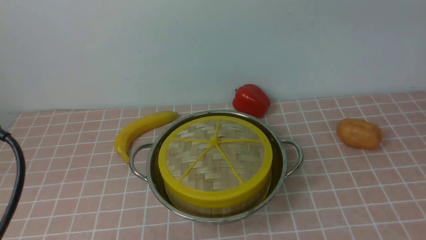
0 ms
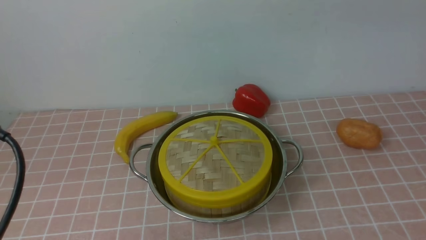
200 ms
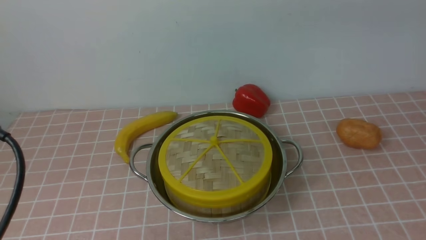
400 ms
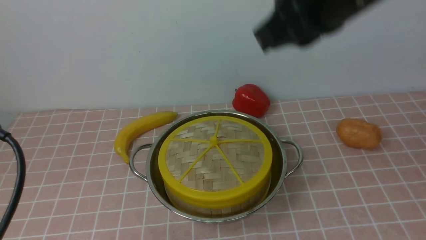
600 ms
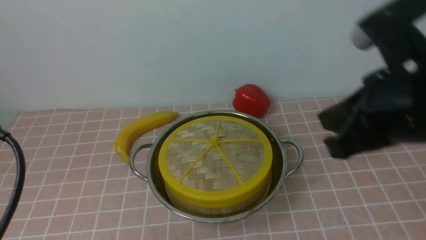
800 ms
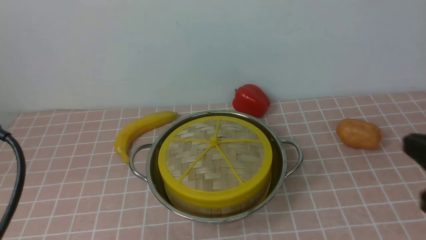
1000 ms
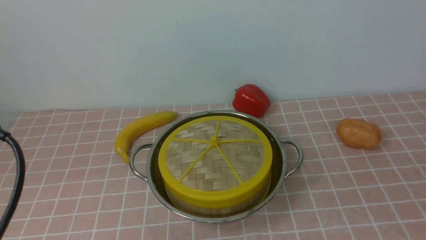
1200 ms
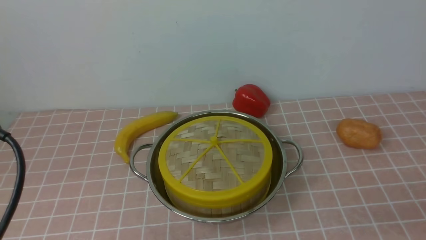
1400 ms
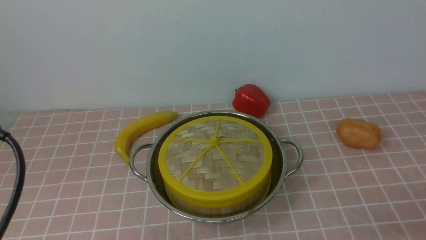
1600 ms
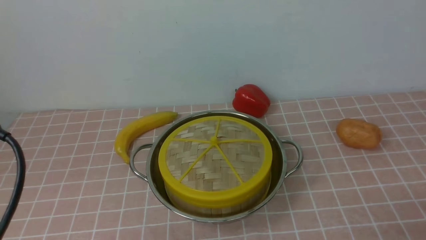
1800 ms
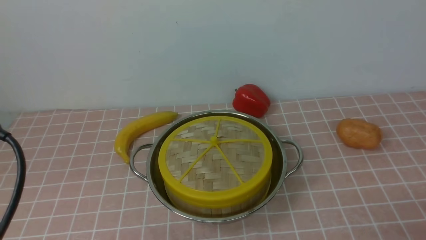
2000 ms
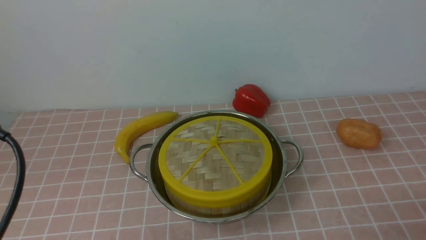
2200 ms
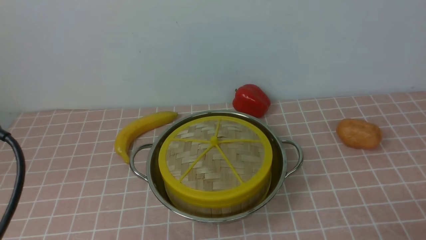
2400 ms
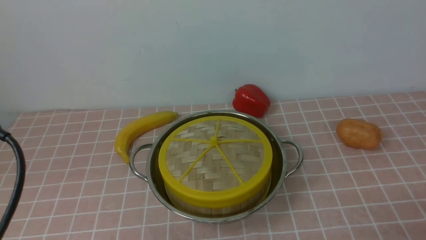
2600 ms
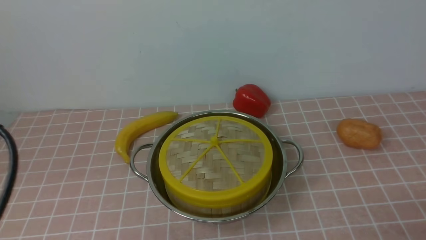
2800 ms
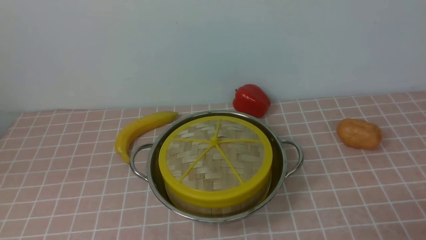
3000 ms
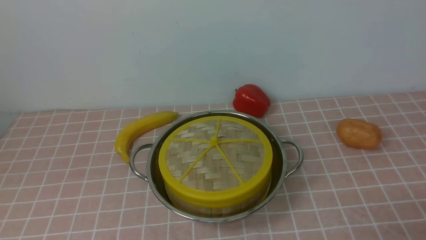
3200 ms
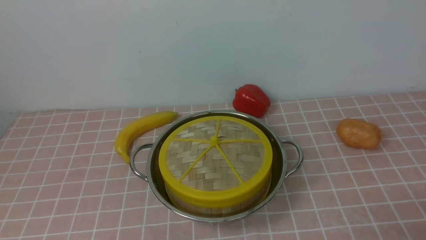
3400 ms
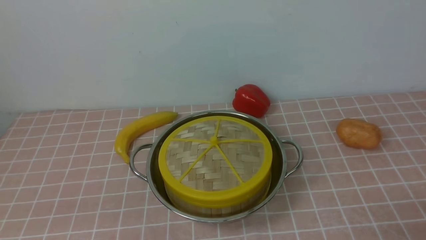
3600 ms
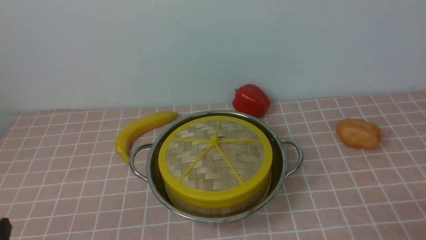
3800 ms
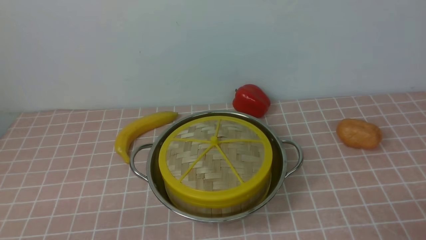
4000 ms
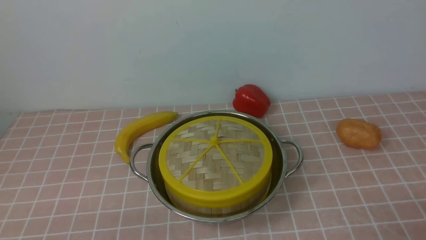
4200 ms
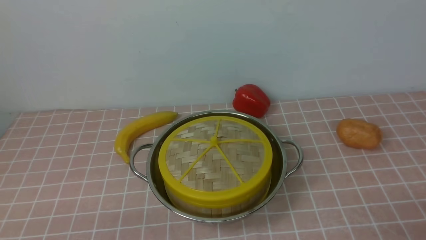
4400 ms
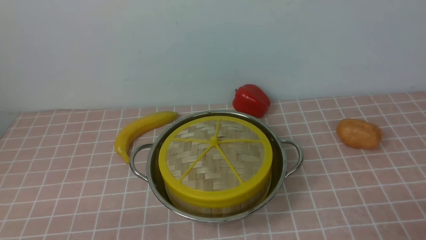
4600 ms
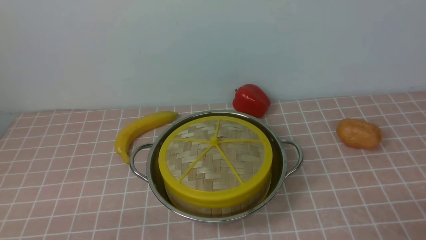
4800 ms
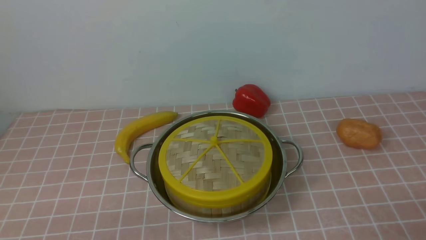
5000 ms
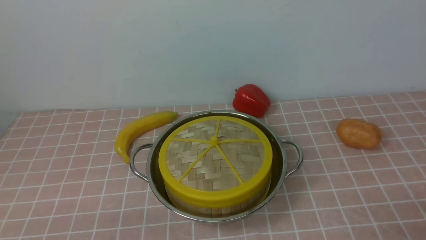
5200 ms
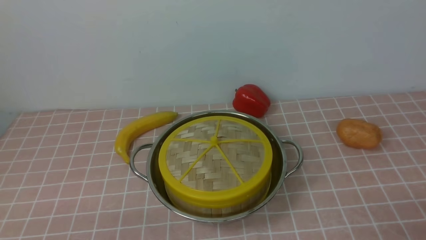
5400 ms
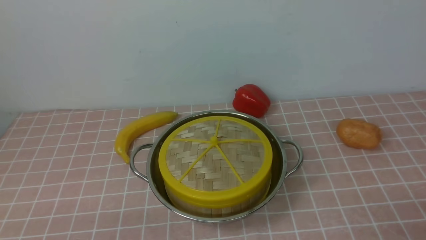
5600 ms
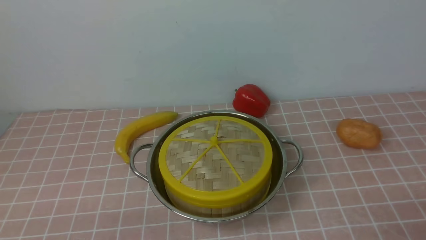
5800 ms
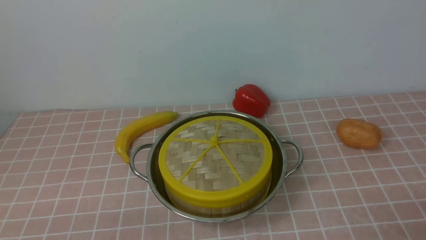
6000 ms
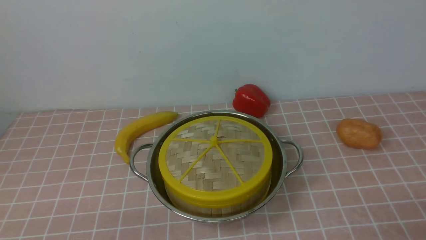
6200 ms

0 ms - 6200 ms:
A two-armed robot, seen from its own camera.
Task of the whole recording: place the steamer in the pot on the pink tablecloth, and put the lid on the steamer.
1600 ms - 3200 ms: The left gripper travels backward by roughly 5 cm.
4600 ms - 6200 ms: The two grippers keep their place.
